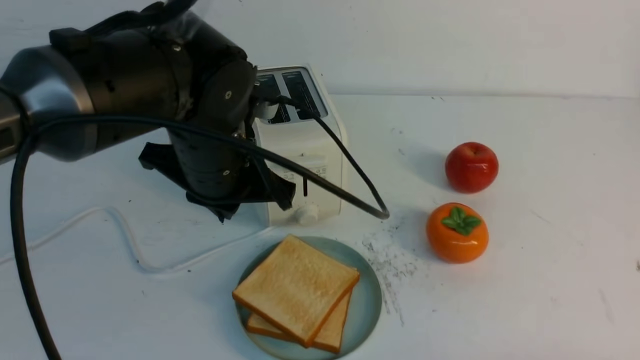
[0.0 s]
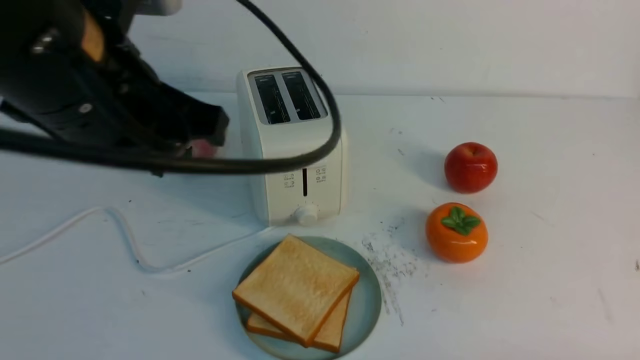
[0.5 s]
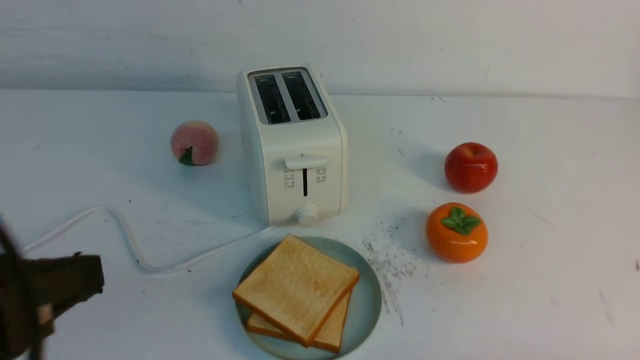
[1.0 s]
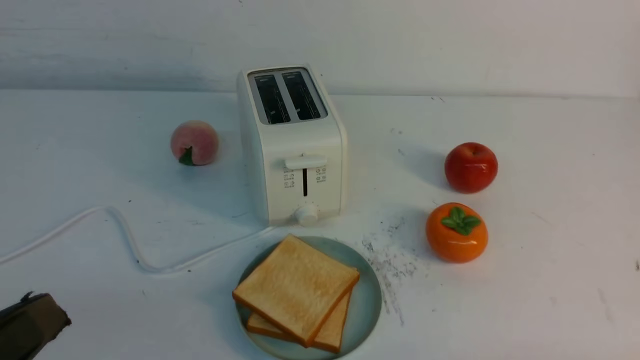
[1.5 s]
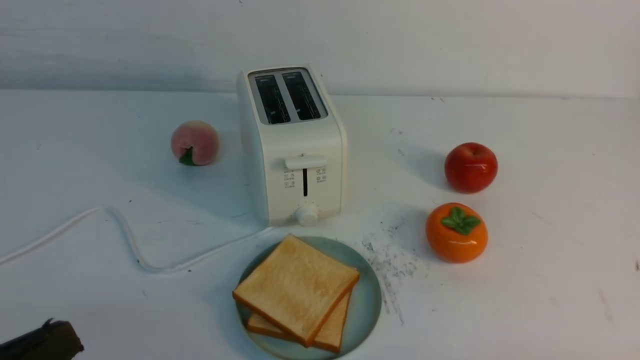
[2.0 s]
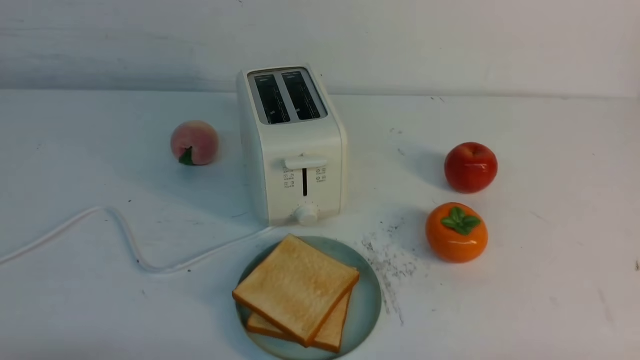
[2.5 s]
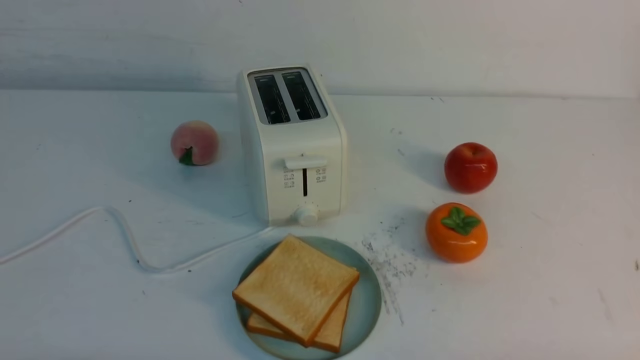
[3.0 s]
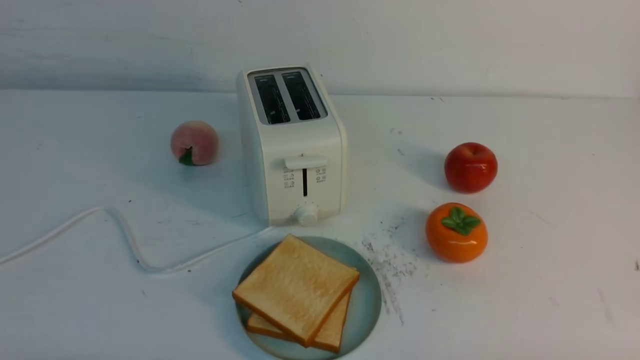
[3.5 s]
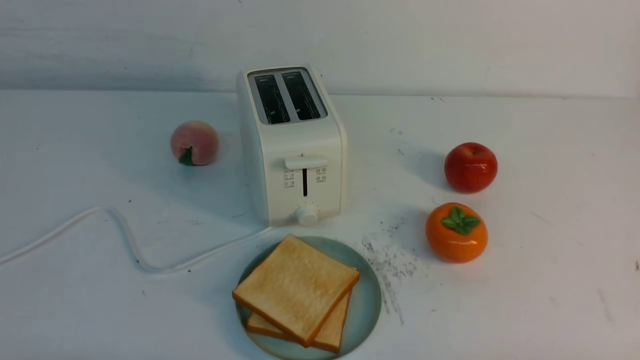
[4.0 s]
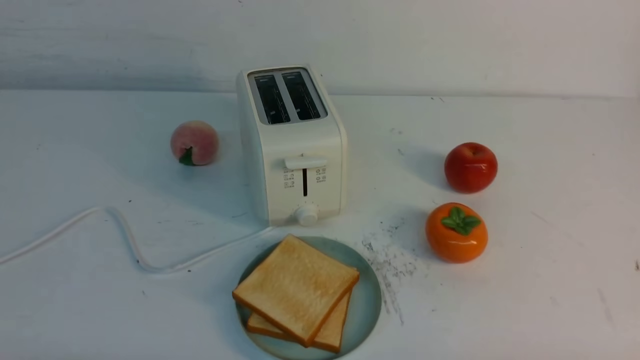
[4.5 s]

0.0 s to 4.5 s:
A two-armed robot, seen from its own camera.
Task of the whole recording: take toasted bread from bread machine on white table place on plate.
0.0 to 2.0 s: The left gripper is displaced backward and to the left by some 30 cm.
2.0 to 4.5 s: The left gripper travels downward by some 10 cm.

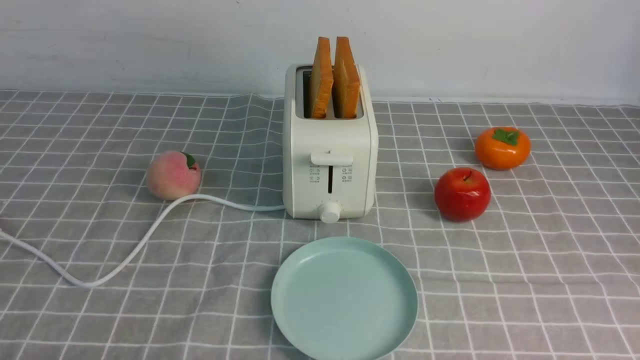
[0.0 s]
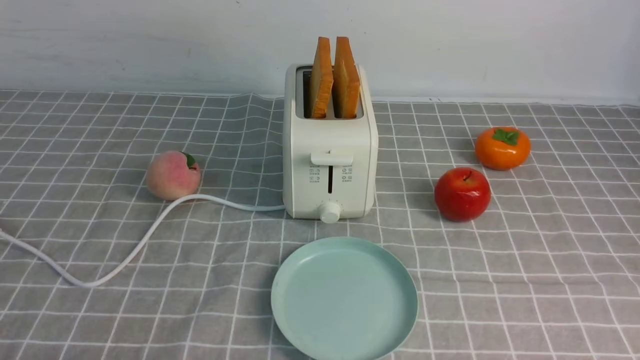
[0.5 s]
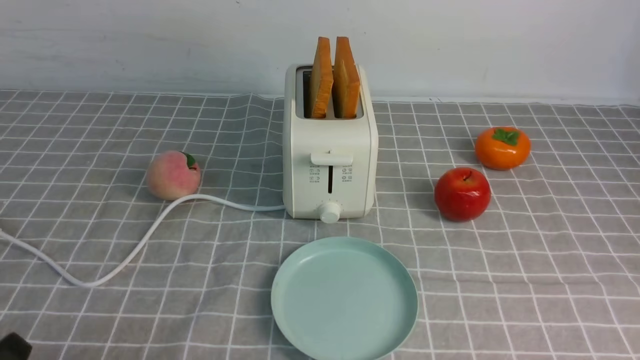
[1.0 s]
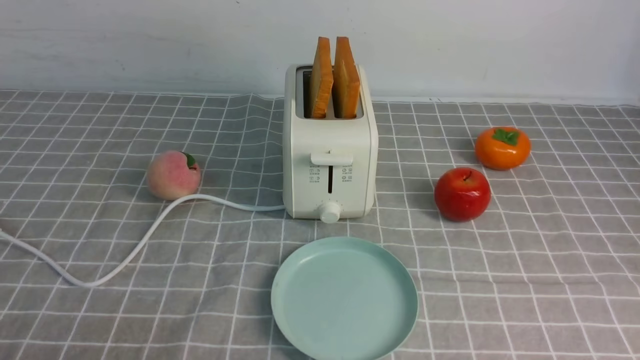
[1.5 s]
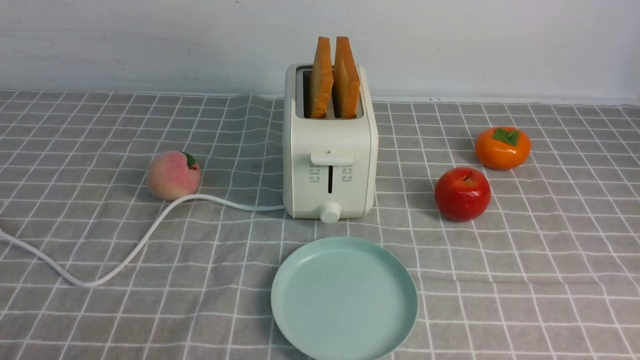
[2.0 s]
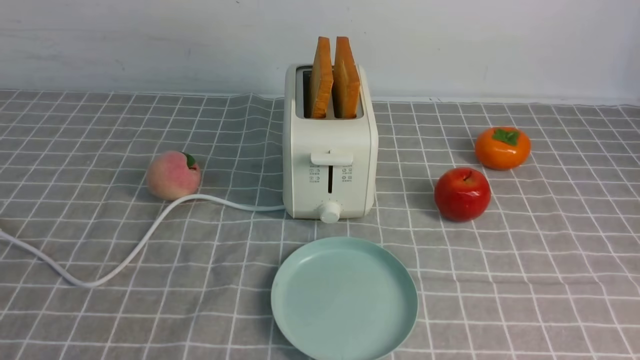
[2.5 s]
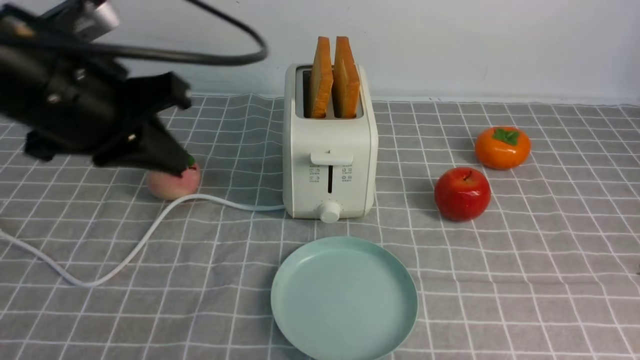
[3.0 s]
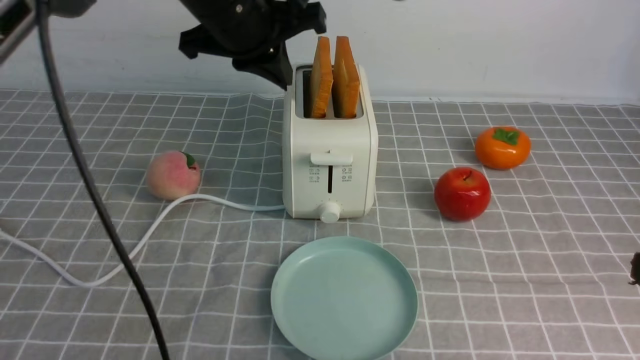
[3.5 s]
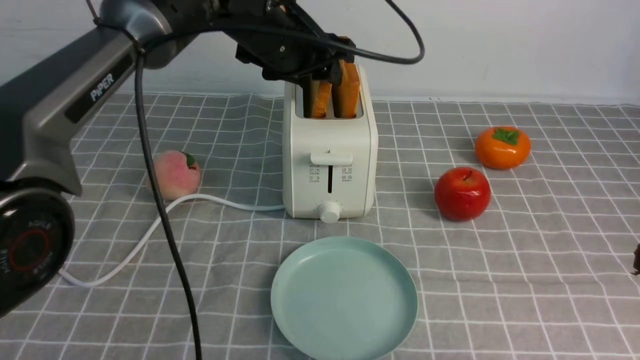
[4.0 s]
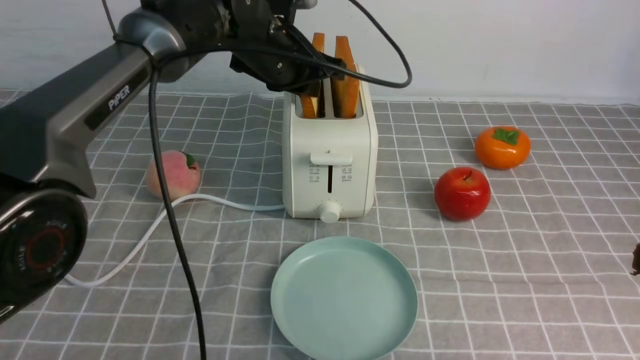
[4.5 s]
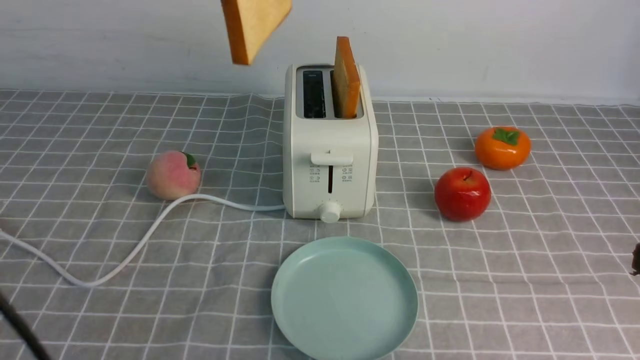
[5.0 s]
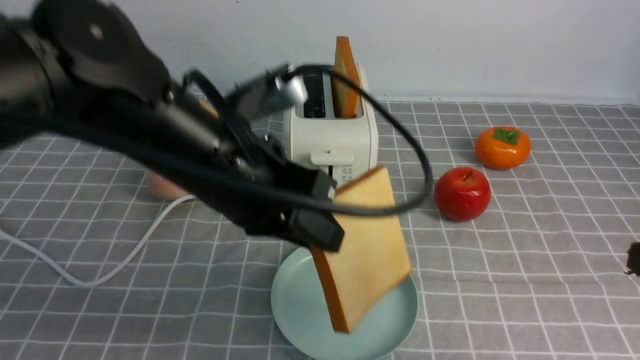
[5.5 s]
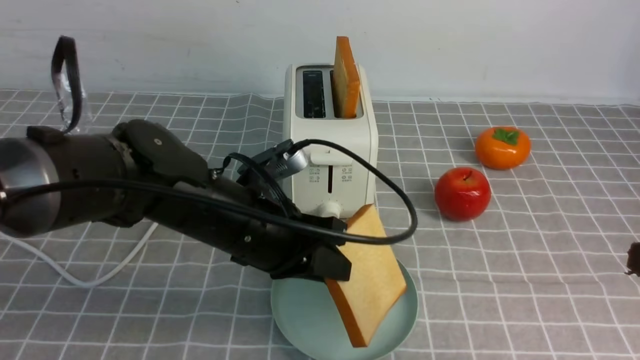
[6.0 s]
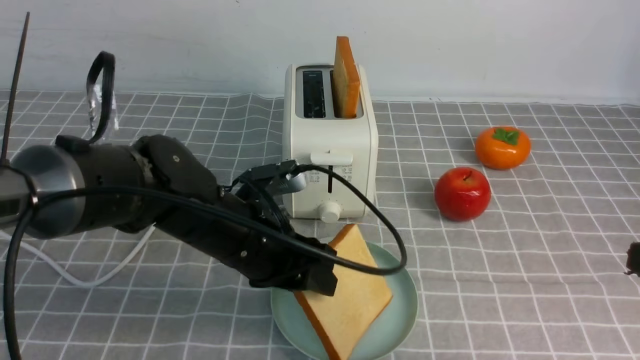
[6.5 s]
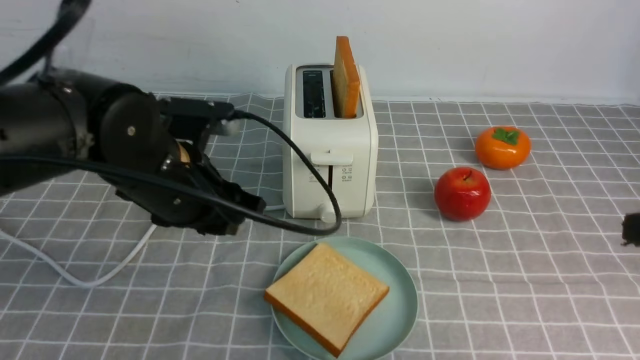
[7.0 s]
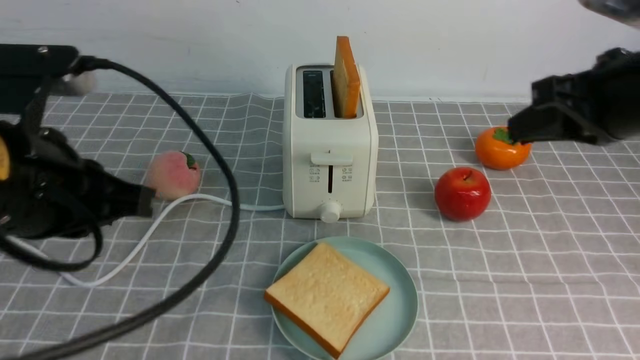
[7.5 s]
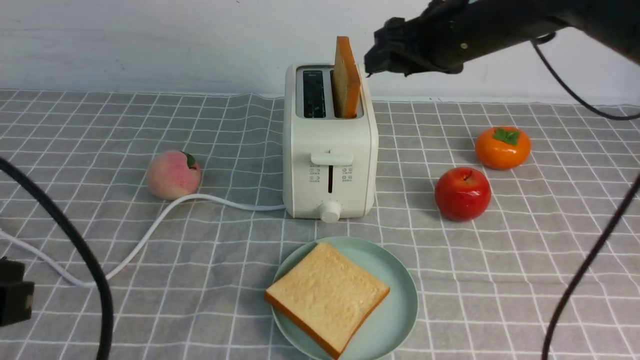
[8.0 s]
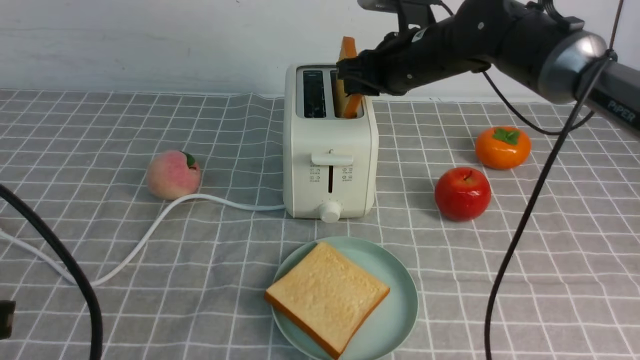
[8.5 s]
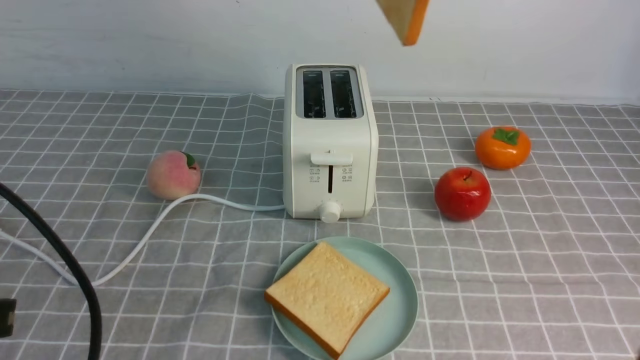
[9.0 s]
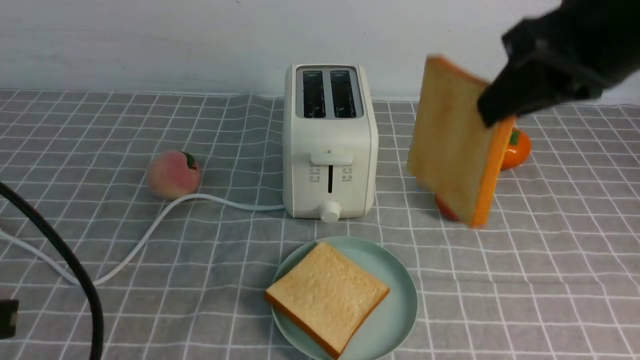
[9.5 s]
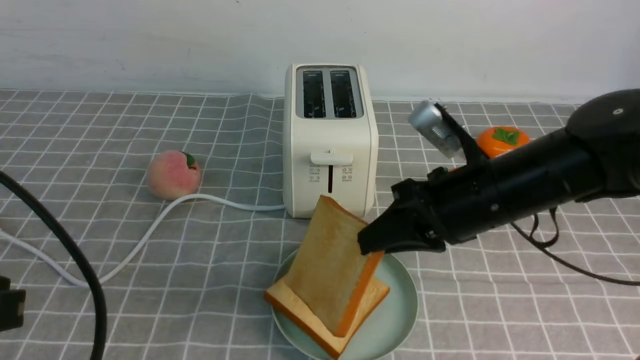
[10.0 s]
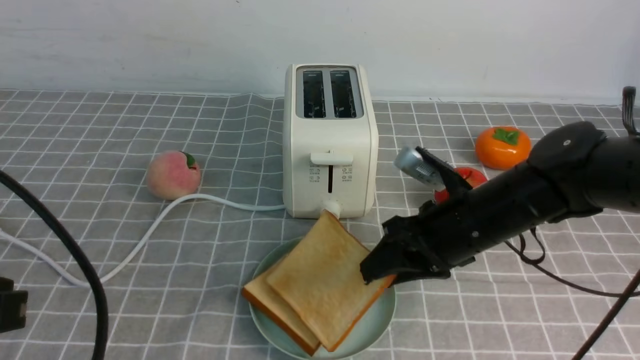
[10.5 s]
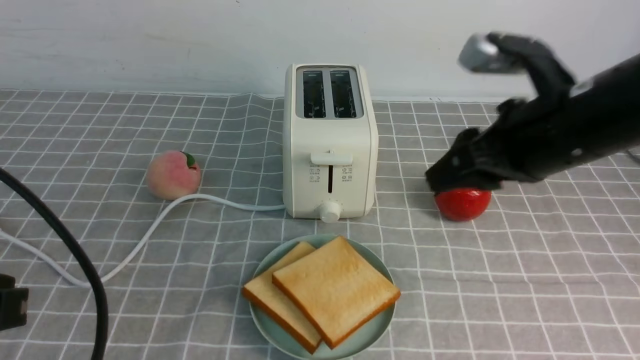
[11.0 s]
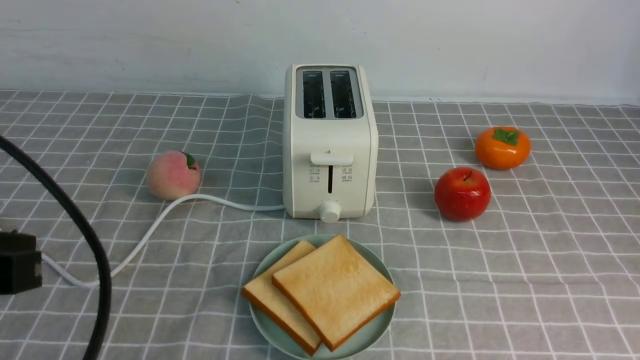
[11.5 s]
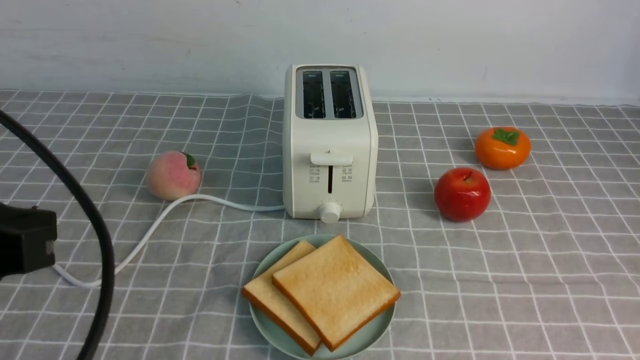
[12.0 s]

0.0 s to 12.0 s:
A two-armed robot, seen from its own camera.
Task of the whole recording: take toasted bread from bread machine on grey coffee table place on plate.
Step, 0.0 to 4.5 s: use the left arm to take out a slice of bread.
Step, 5.0 to 7.0 s: use the left arm to put a slice of bread into the empty plate.
Step, 7.5 to 9.0 s: use the right arm to take out a slice of bread.
Step, 9.5 to 10.5 s: use the right arm to put a slice of bread into the plate.
2.0 to 4.0 s: The left gripper shifts about 40 cm forward and to the right, and opens its fingers. Meanwhile the right gripper goes roughly 15 cm upward and forward, and closes its fingers.
4.0 to 6.0 s: The left gripper moves backward and downward, some 20 cm, and closes.
6.0 to 8.0 s: The left gripper heads backward, to the left and upward, covering about 25 cm, and opens, then closes again; the right gripper heads forward and to the left, covering roughly 30 cm, and opens.
8.0 to 10.0 s: The right gripper is displaced backward and downward by roughly 15 cm, and closes its fingers.
10.0 to 12.0 s: The right gripper goes approximately 30 cm backward and to the right, and opens and closes again.
